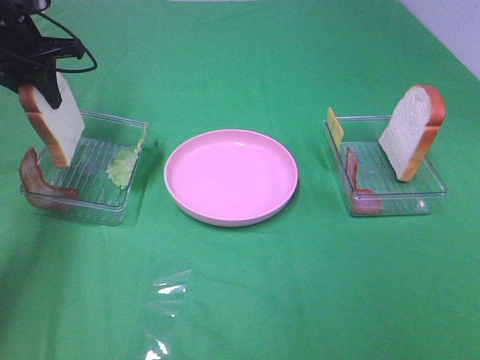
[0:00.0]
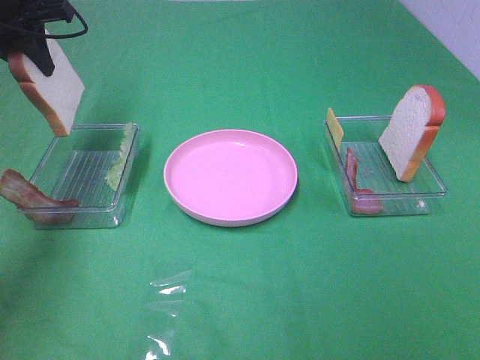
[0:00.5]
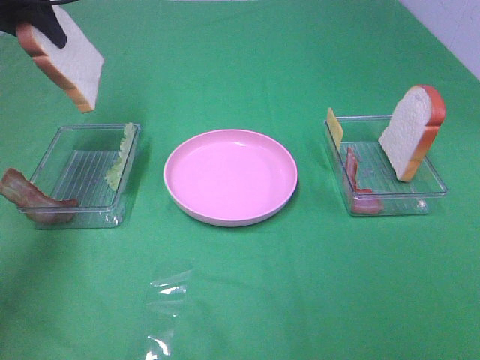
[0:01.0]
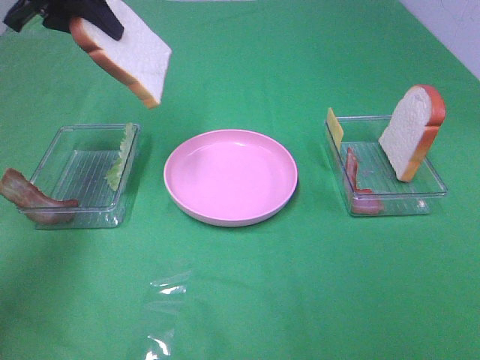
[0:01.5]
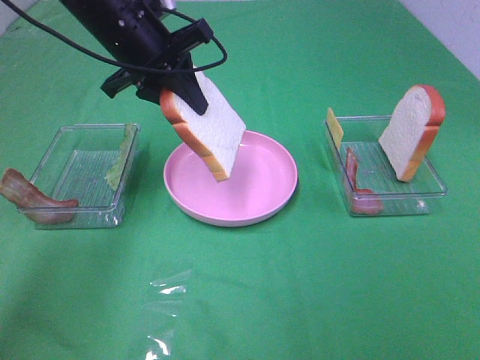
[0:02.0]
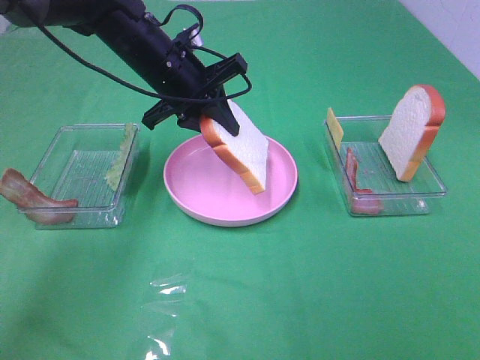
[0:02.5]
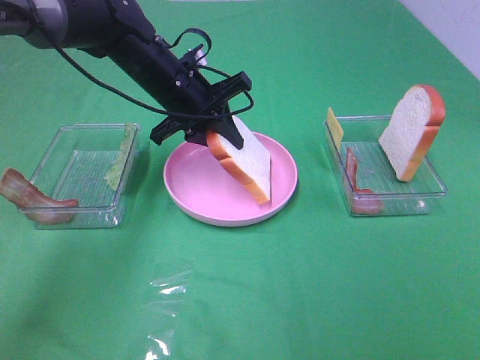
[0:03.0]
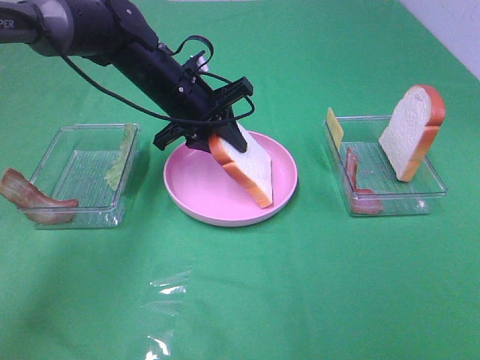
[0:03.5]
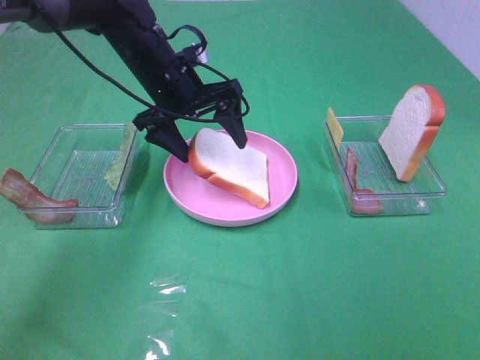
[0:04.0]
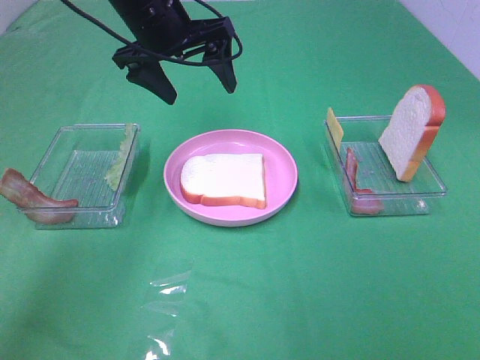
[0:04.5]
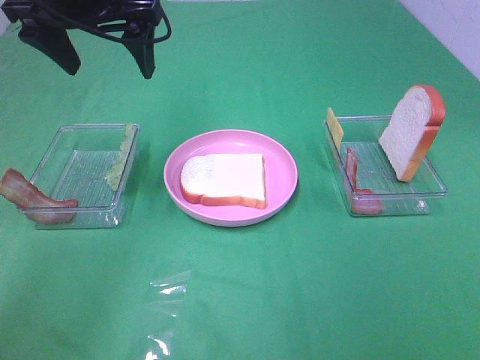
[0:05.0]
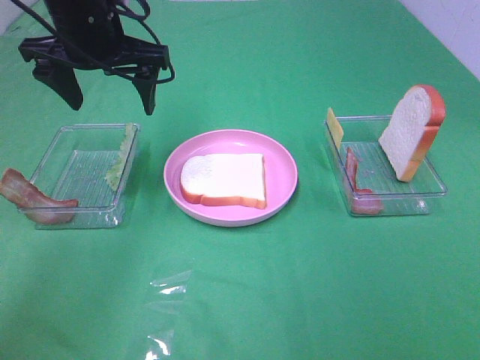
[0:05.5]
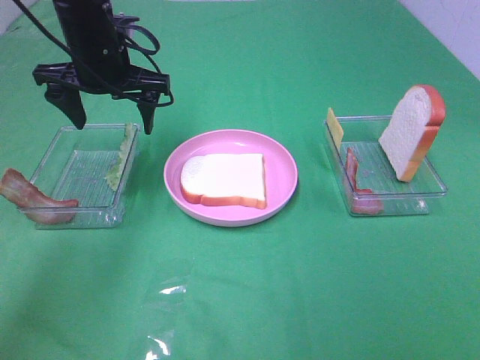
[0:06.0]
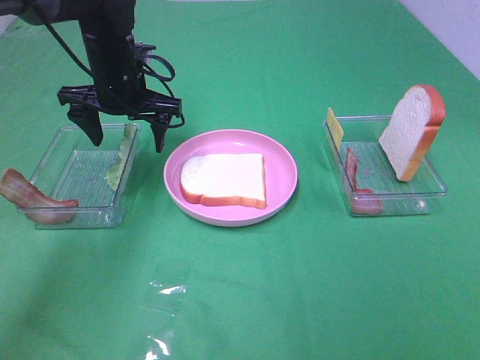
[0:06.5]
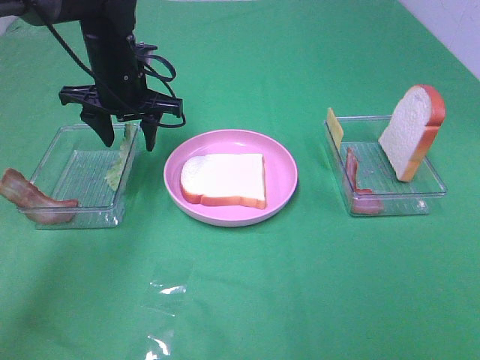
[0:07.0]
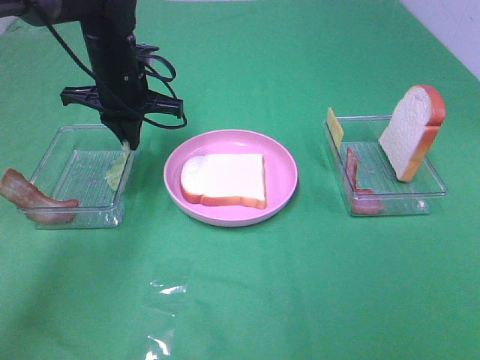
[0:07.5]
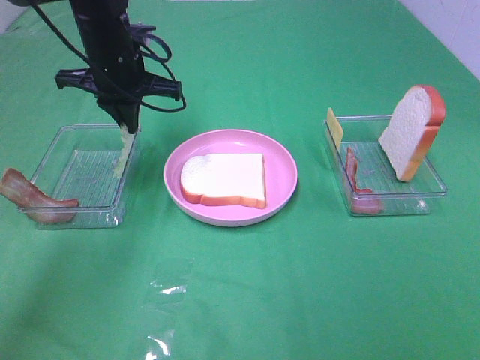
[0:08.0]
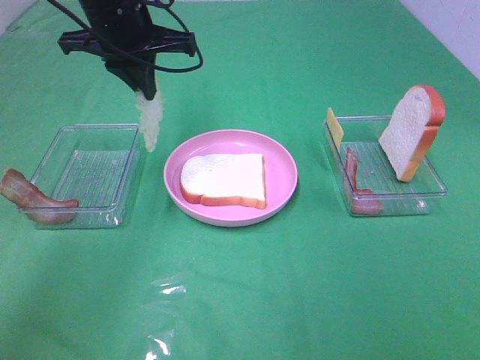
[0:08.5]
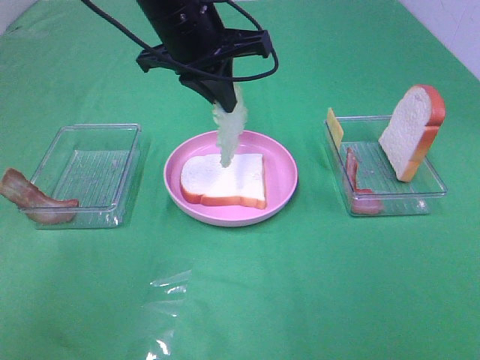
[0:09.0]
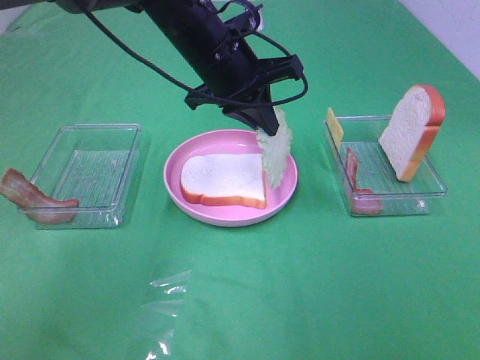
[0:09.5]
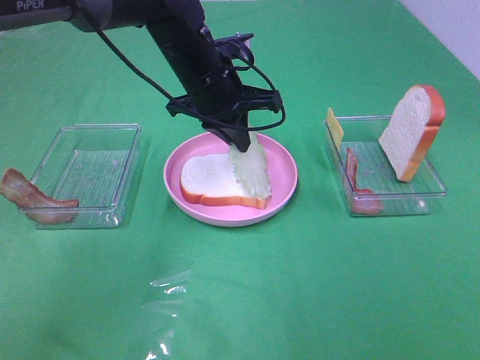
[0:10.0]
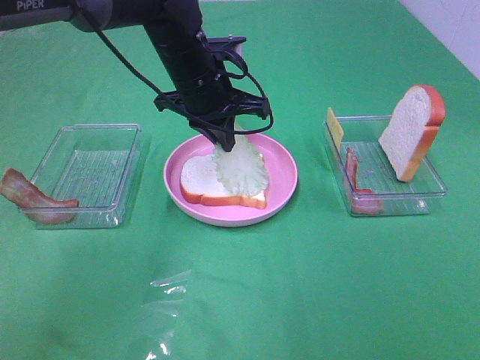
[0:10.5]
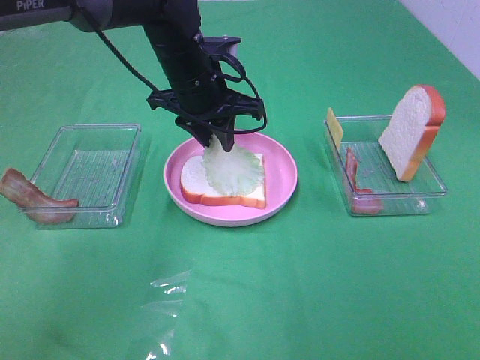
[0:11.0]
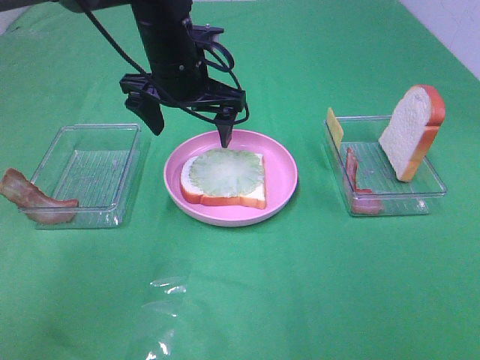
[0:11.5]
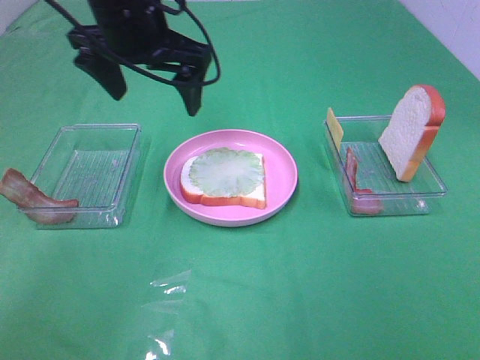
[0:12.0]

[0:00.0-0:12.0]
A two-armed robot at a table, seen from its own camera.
Task of the whole recording: Make sandwiches.
Step, 0:00.0 to 0:04.0: Left hand:place the bread slice on the plate.
Step, 0:04.5 to 0:07.5: Left hand:grab the lettuce slice.
Step, 0:08.0 to 0:11.0: Left hand:place the lettuce slice on the bread slice.
0:00.0 to 0:02.0: The left gripper travels to the right by approximately 15 cm.
0:02.0 to 0:04.0: The left gripper travels downward by some 5 cm, and opens.
0:04.0 to 0:06.0: The left gripper moves to the left, roughly 5 cm, and moves roughly 10 cm upward and comes back.
0:06.0 to 0:08.0: The left gripper closes.
0:08.0 to 0:10.0: The left gripper goes approximately 10 cm to the right.
0:10.0 to 0:12.0: The left gripper heads upward and to the left, covering some 10 cm, and opens its fingers.

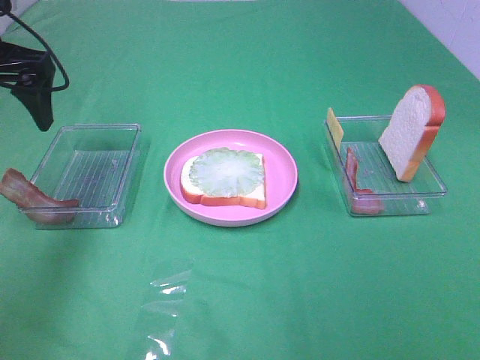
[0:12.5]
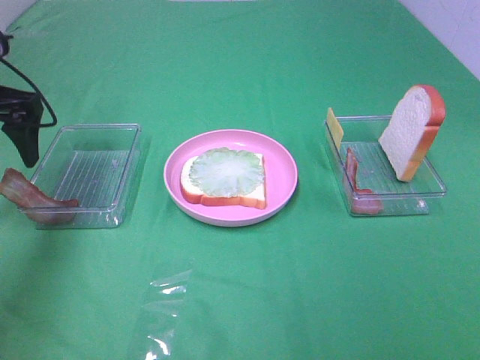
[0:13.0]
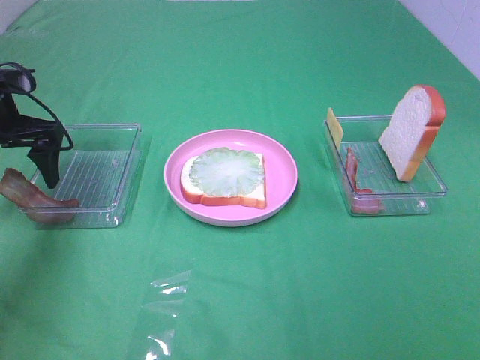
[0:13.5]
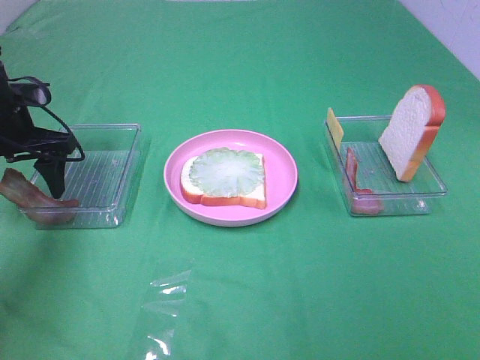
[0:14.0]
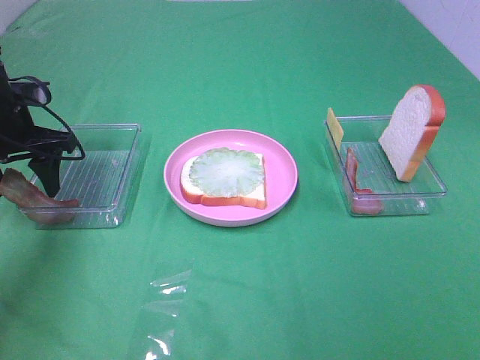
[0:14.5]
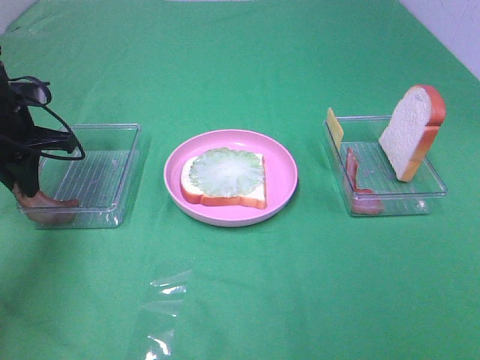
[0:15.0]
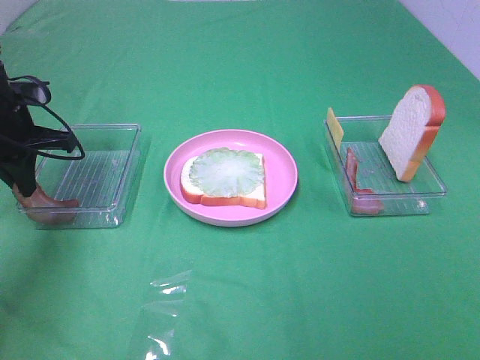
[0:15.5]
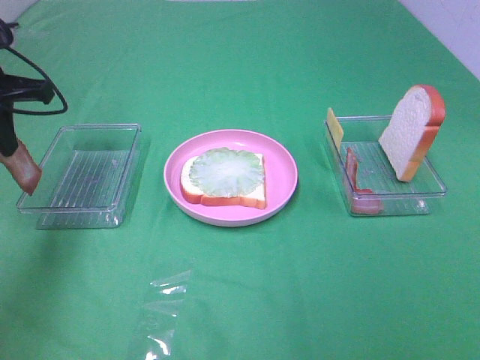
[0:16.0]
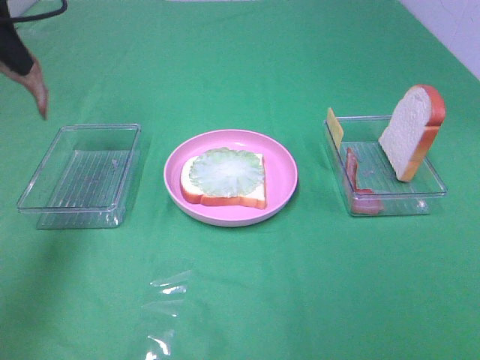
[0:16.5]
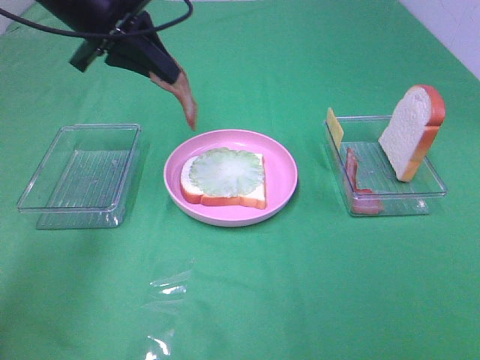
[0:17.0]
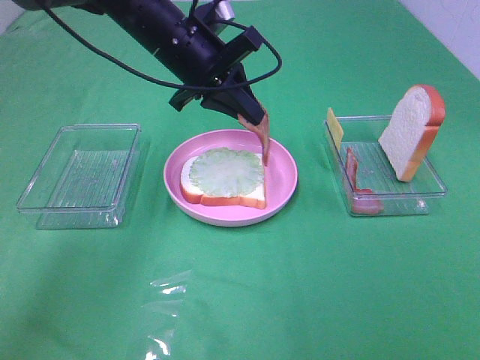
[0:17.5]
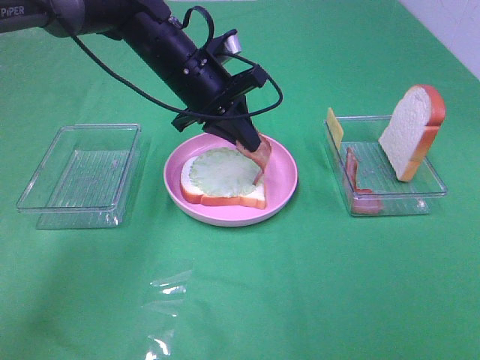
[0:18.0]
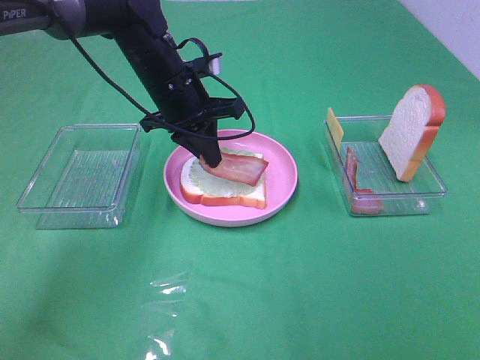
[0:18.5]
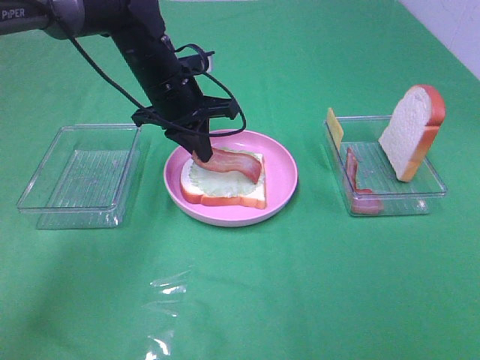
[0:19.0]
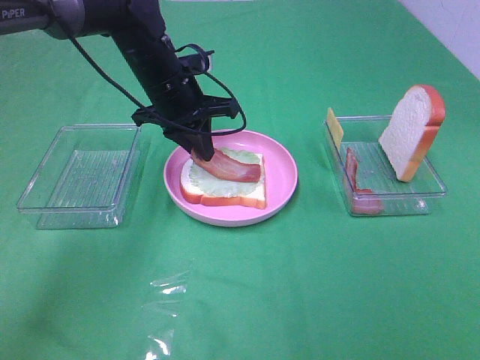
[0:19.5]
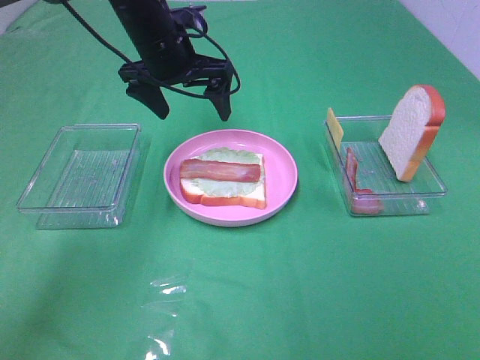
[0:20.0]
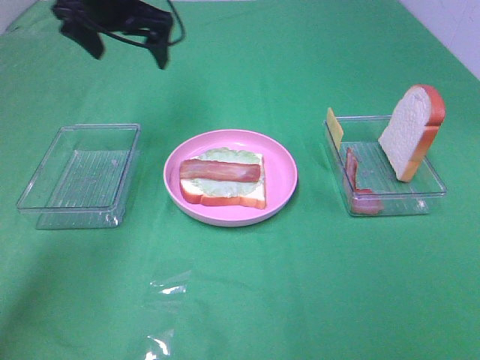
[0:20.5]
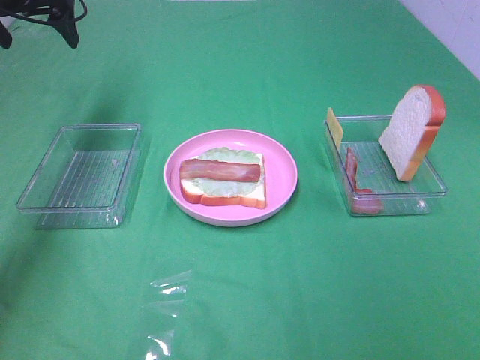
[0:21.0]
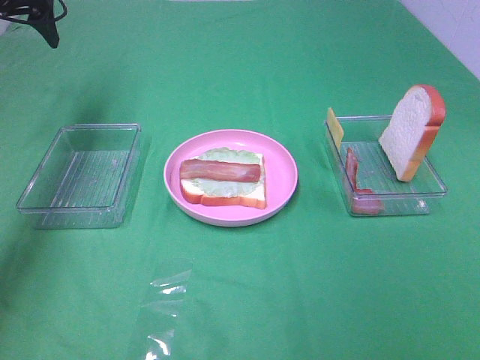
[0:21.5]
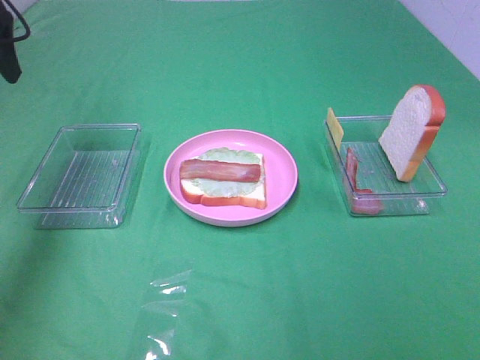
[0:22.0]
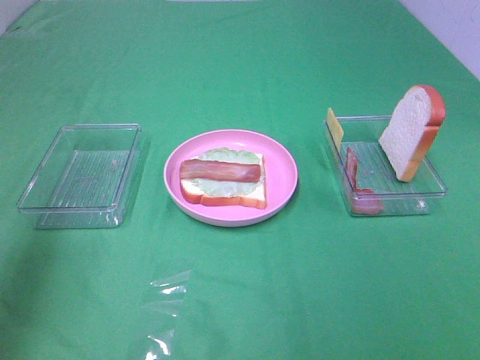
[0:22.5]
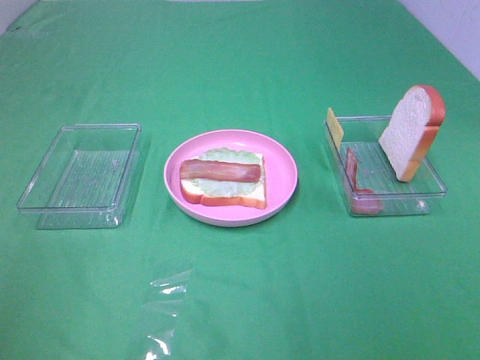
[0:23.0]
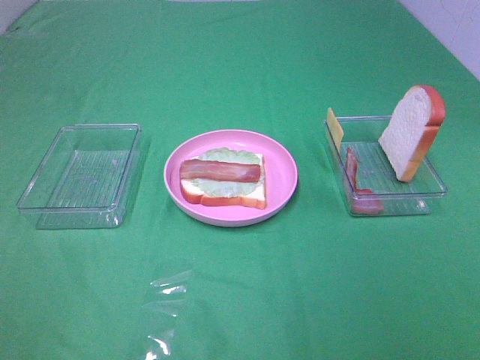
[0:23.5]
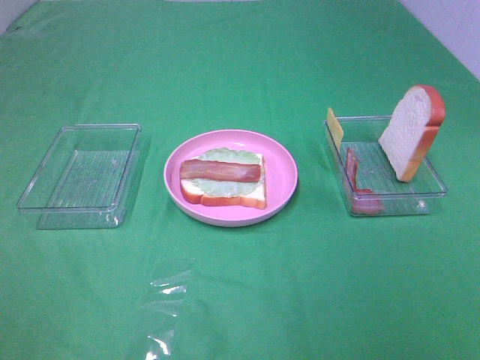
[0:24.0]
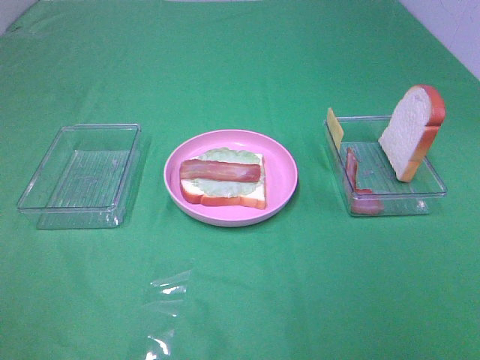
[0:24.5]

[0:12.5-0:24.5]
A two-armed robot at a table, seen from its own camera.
Task of the whole recording: Make sandwiches.
Step, 0:12.5 to 0:15.0: Left hand:grab the bacon.
Step, 0:15.5 to 0:19.5: Left hand:place bacon on lettuce slice.
0:12.5 to 0:14.5: The left gripper heads downward, covering roughly 10 cm.
0:14.5 to 0:16.5: The left gripper moves upward, about 15 cm, and closes its fingers.
0:16.5 to 0:18.5: The left gripper heads to the right, downward and forward, covering roughly 25 cm.
0:18.5 to 0:20.5: The left gripper shifts about 15 cm upward, to the left and forward, and opens.
0:20.5 to 0:22.5: The left gripper is displaced backward and to the left by roughly 30 cm.
0:22.5 to 0:24.5: The left gripper shifts approximately 20 cm backward.

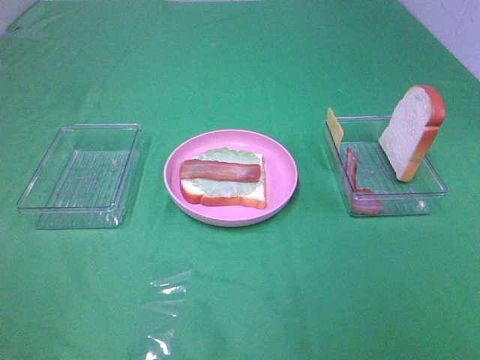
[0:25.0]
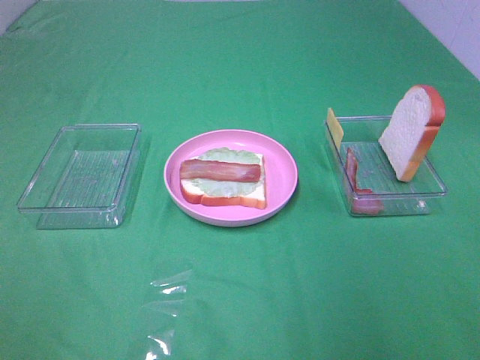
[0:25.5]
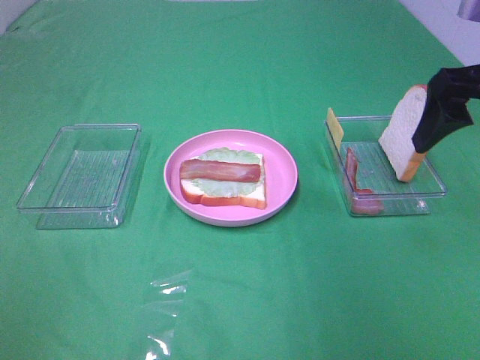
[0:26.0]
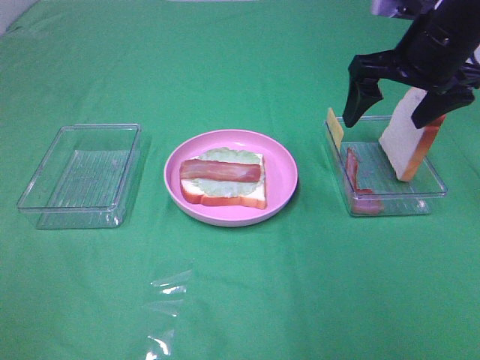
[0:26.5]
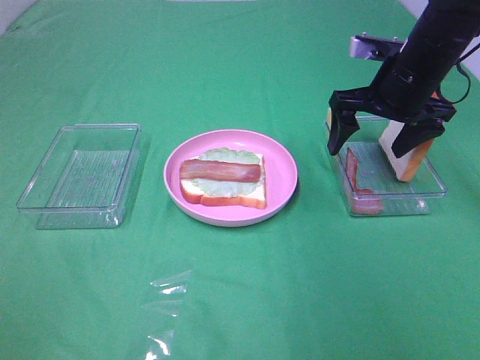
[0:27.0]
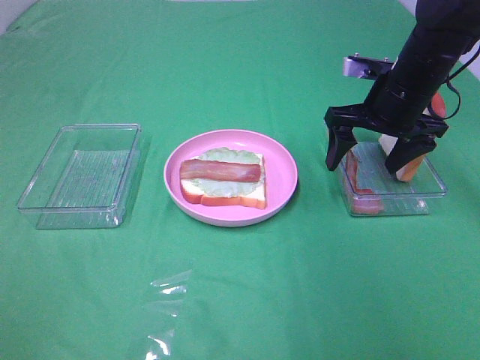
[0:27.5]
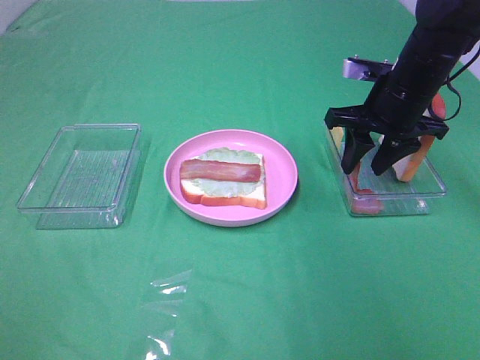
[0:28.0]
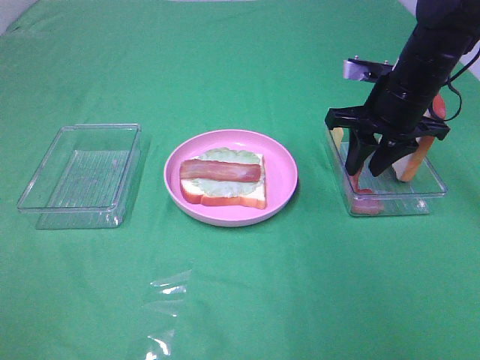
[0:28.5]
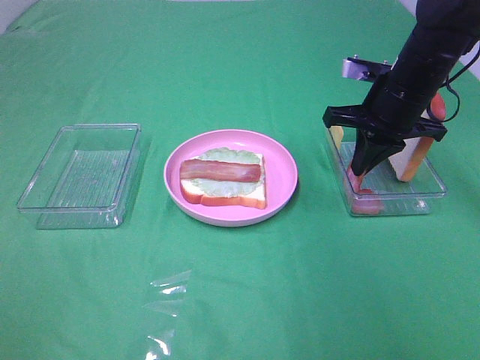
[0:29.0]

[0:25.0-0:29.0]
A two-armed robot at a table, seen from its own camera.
Task of the whole recording: Make sandwiches.
Step, 0:25.0 to 0:29.0: Right hand:grab the bacon.
0:25.0 to 0:27.0: The right gripper moves forward, roughly 40 cm.
0:27.0 to 0:29.0: The right gripper closes its fingers.
